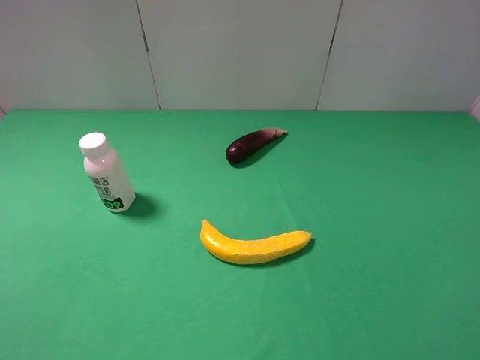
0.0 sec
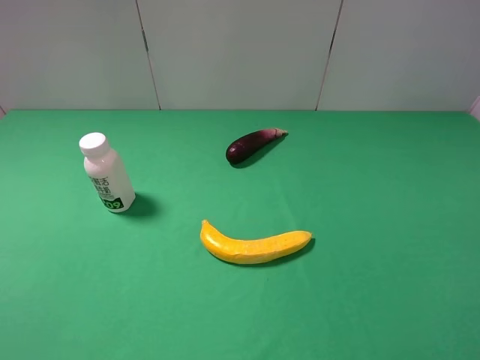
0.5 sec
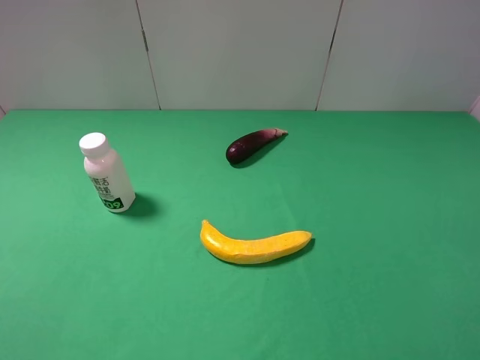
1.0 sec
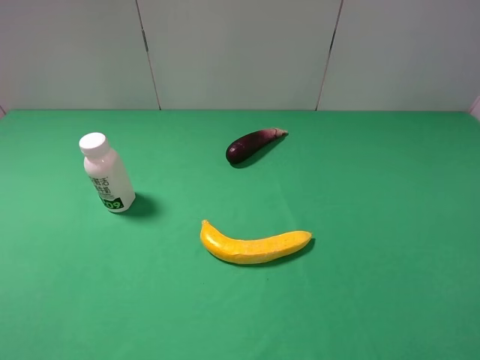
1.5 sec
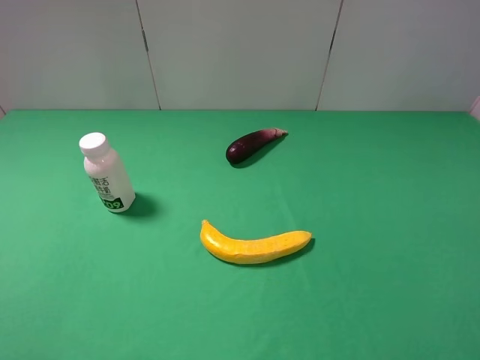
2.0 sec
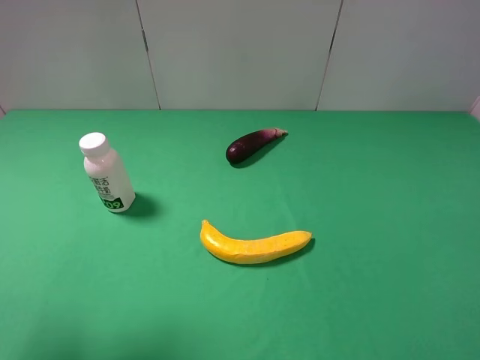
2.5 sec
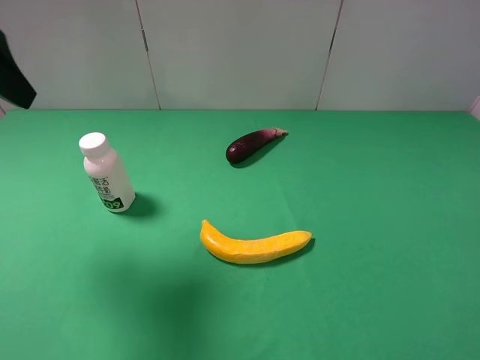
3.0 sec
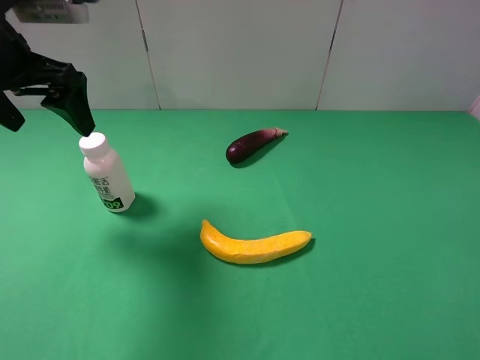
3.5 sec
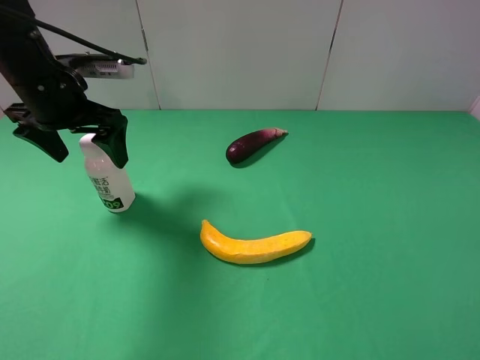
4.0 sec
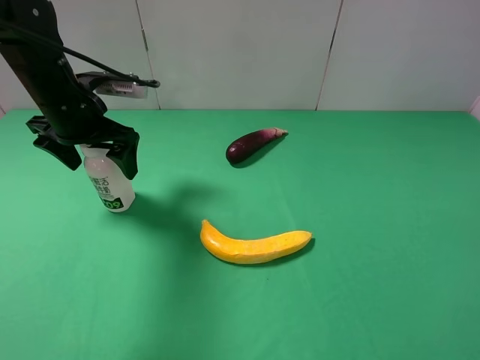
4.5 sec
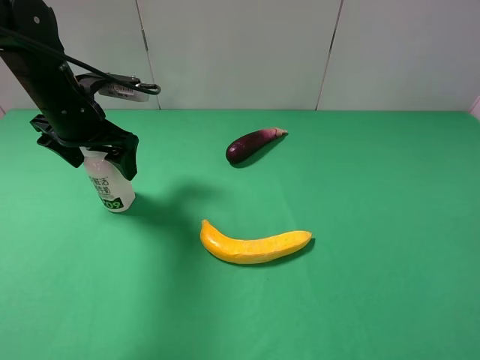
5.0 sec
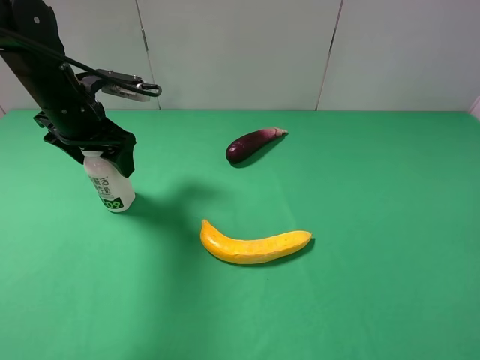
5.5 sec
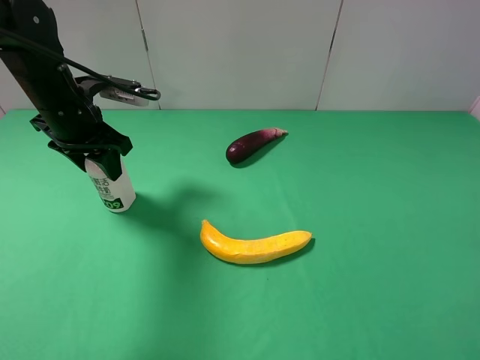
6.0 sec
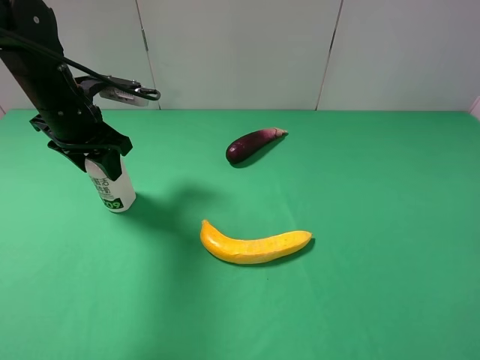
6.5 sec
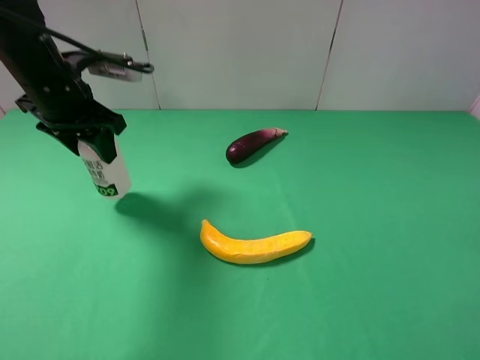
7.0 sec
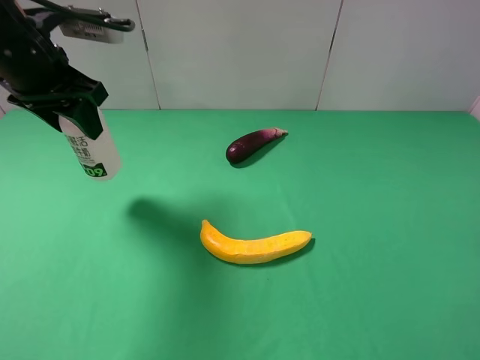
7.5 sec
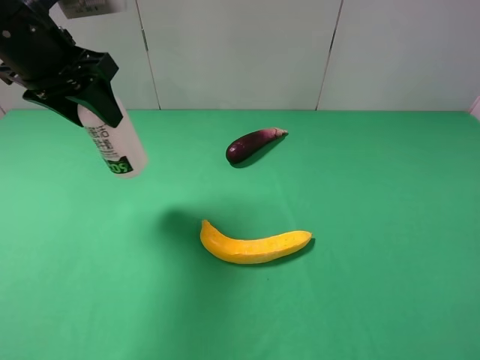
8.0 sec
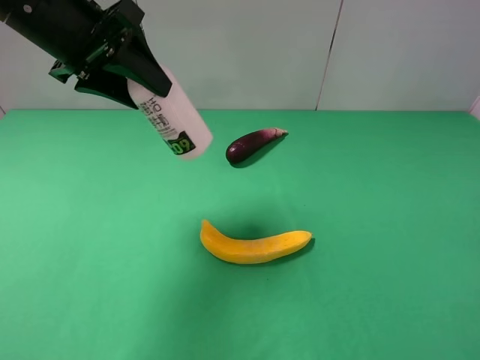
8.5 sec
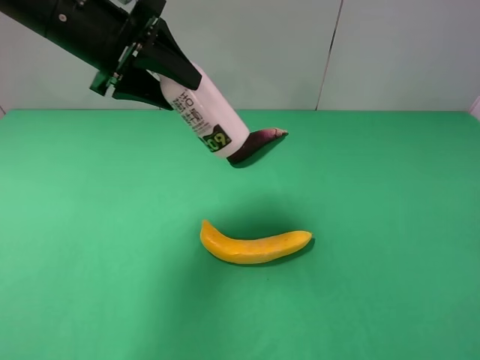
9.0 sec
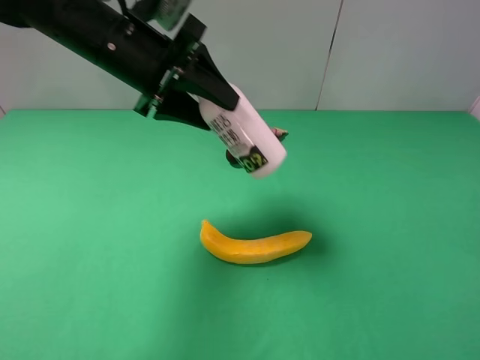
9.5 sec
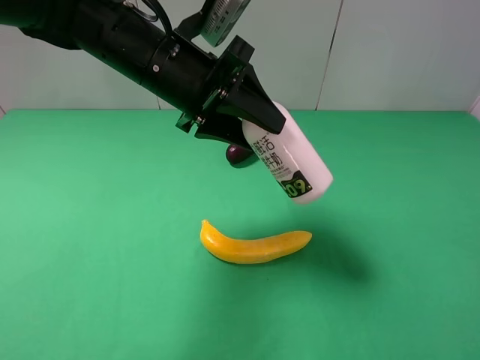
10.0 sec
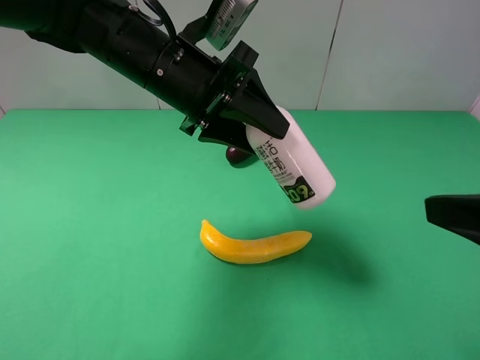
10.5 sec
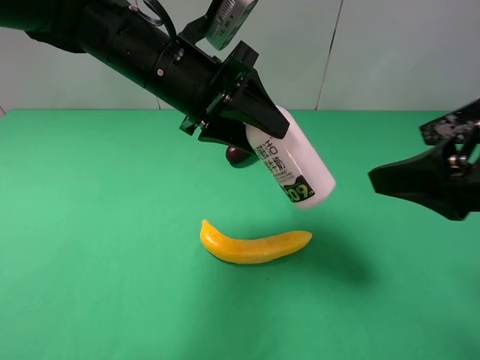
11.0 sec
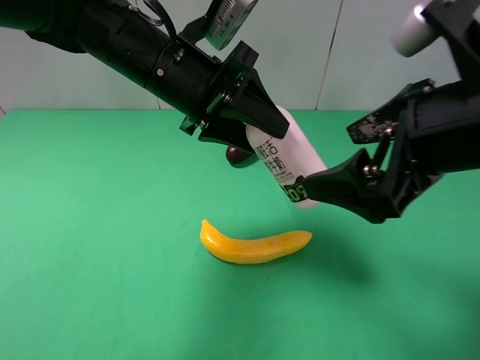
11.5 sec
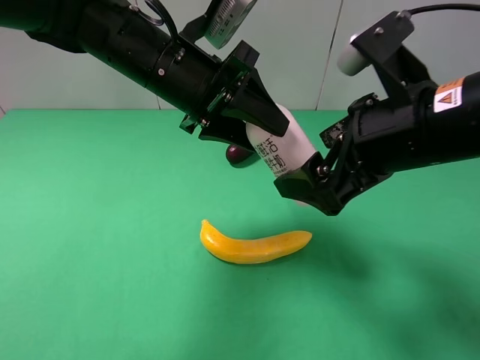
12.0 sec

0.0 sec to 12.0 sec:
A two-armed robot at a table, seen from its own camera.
Task of the whole recording: use the left gripper to pick up the item and transfer it from the left gripper to the right gripper.
2.0 sec to 4.0 sec: The left gripper goes some 30 cm forward.
4.0 sec to 6.0 sec: The left gripper closes.
6.0 sec to 8.0 sec: The left gripper shifts some 10 cm upward.
8.0 sec to 10.0 sec: The left gripper heads to the right, covering some 15 cm.
10.0 sec to 12.0 sec: The right gripper heads forward and to the left, covering approximately 20 cm.

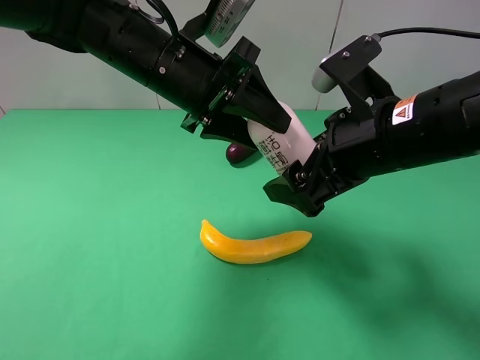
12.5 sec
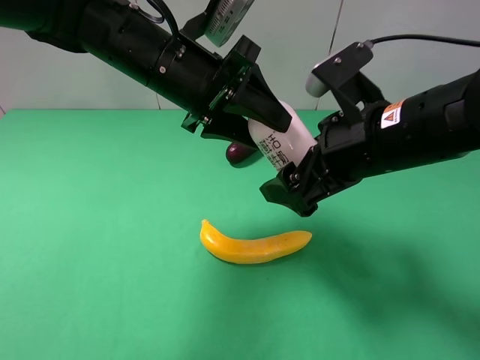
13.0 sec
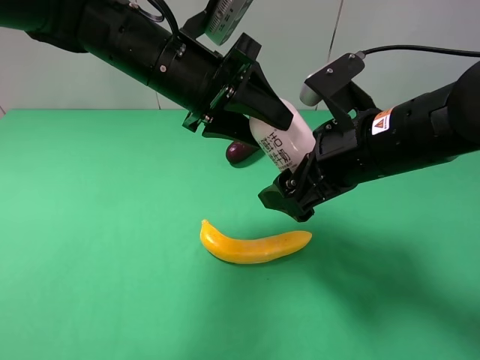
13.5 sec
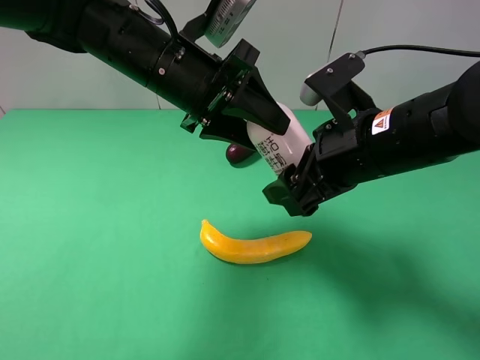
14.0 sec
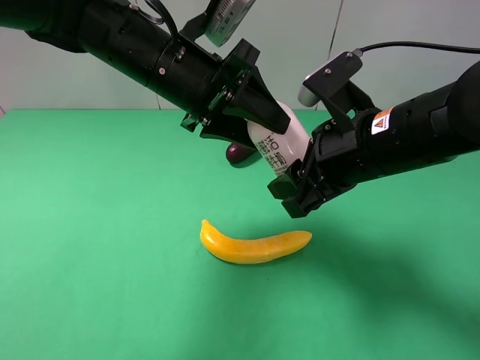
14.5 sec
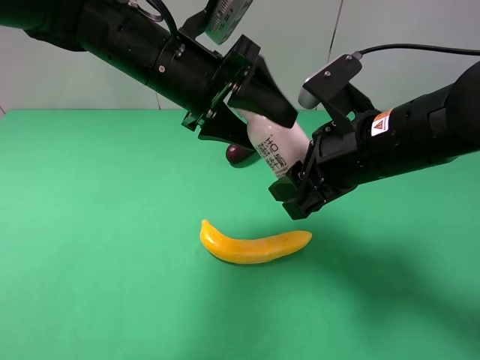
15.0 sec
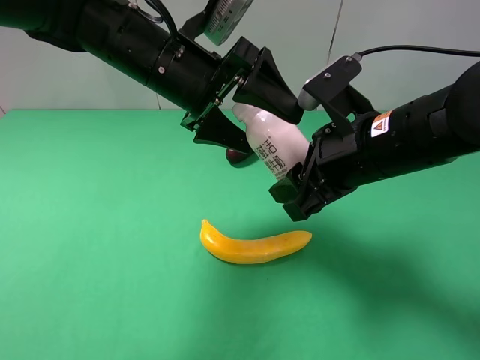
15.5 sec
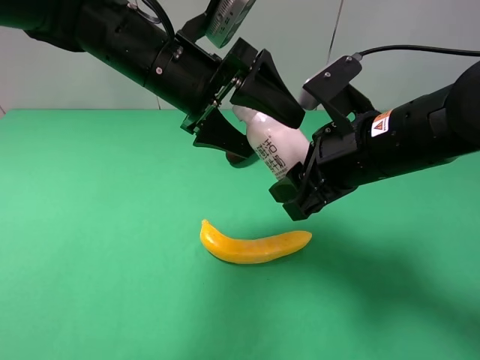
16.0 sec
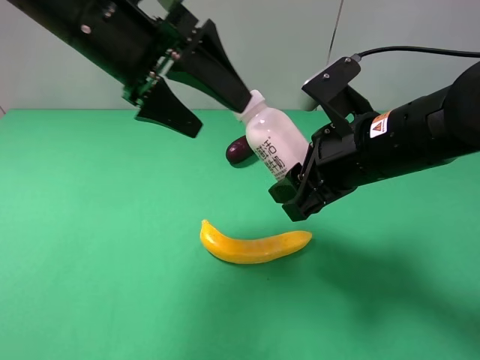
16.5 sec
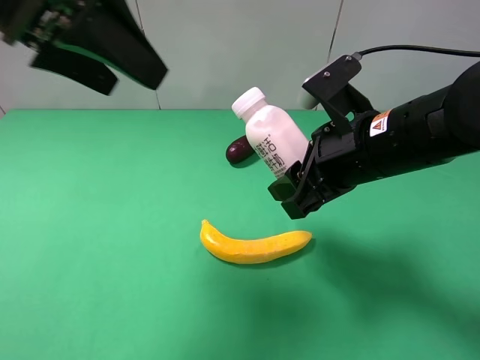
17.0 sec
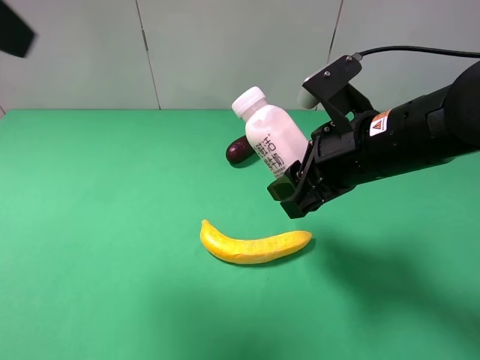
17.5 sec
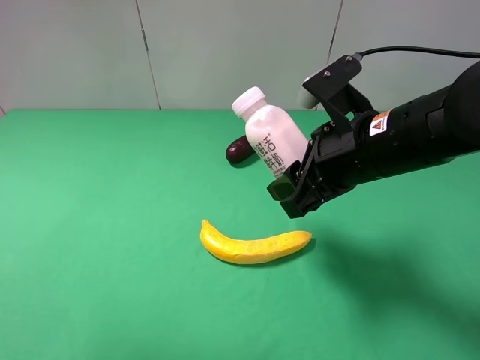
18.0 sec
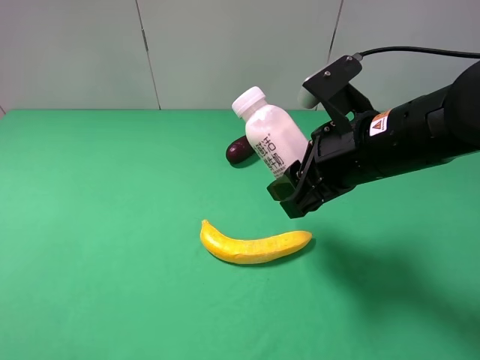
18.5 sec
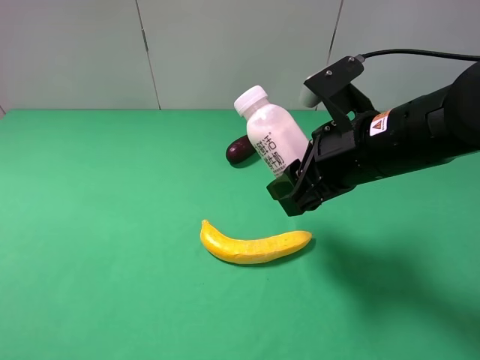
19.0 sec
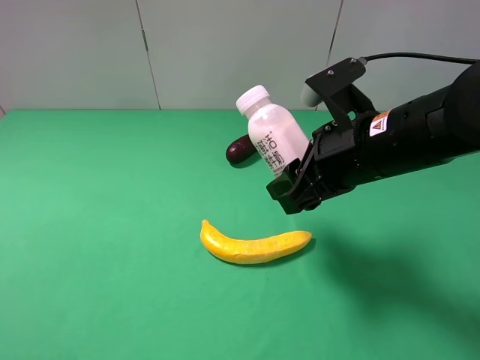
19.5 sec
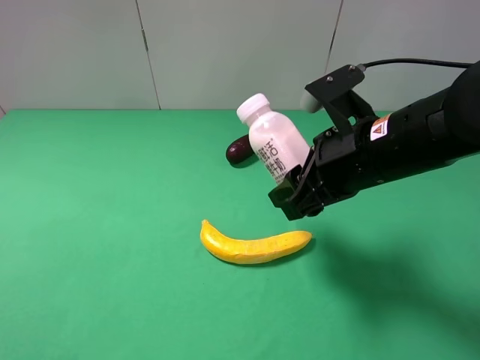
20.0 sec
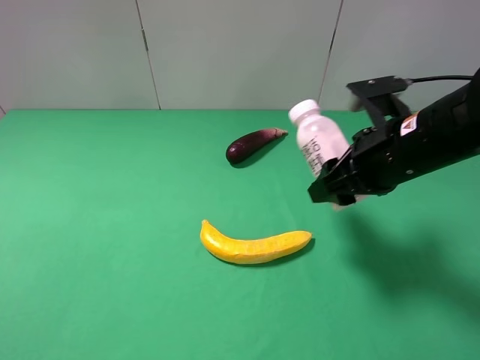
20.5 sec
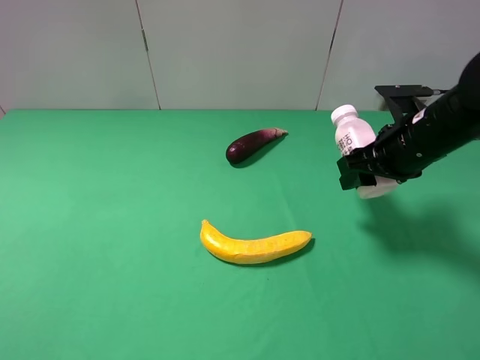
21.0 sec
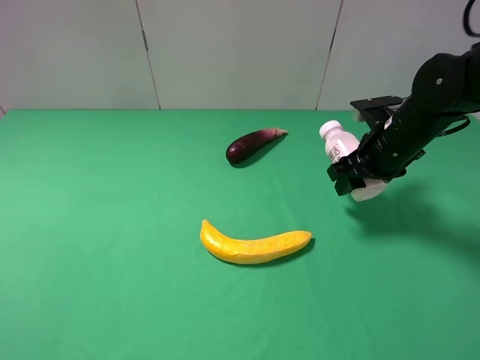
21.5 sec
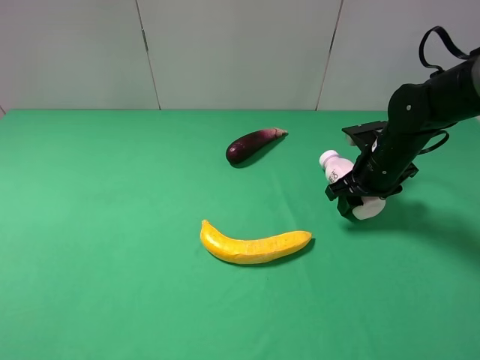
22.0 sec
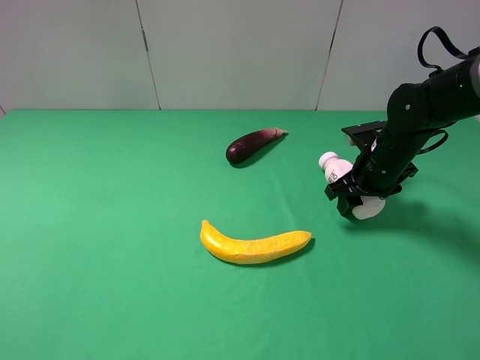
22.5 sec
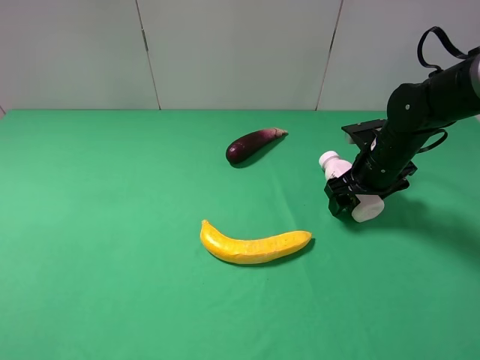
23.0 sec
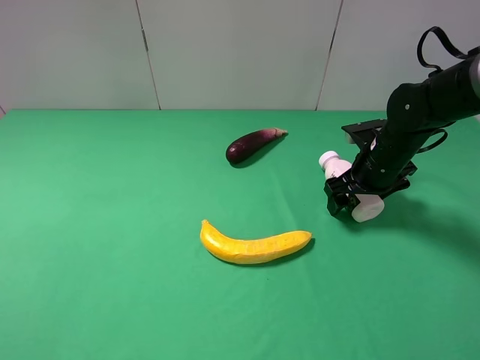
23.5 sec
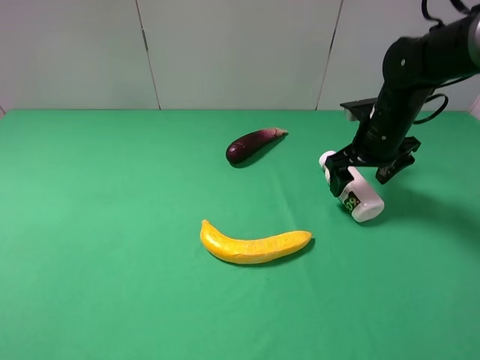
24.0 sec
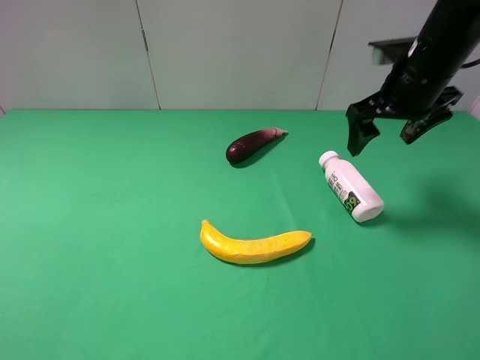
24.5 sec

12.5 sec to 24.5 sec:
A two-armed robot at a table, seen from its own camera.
Task of the whole recording: use the left gripper to pick up the item and transfer it from the left gripper to the right gripper.
12.5 sec to 14.5 sec: The right gripper closes its fingers.
14.5 sec to 16.5 sec: The left gripper moves to the left and upward, approximately 10 cm, and opens its fingers.
16.5 sec to 18.5 sec: The left gripper heads backward and to the left, covering about 30 cm.
18.5 sec to 20.5 sec: The left gripper travels downward by roughly 10 cm; the right gripper moves to the right, roughly 5 cm.
20.5 sec to 22.5 sec: The right gripper heads downward and forward, covering approximately 15 cm.
22.5 sec to 24.5 sec: The right gripper shifts about 15 cm upward, and opens.

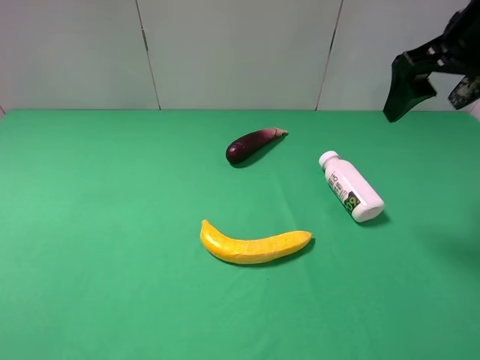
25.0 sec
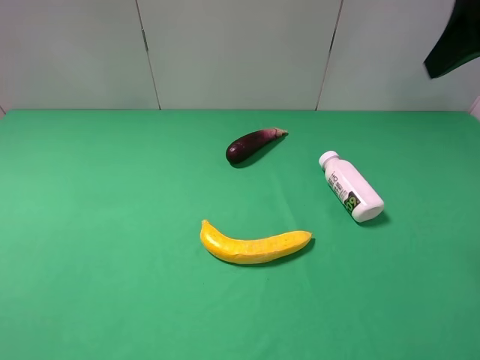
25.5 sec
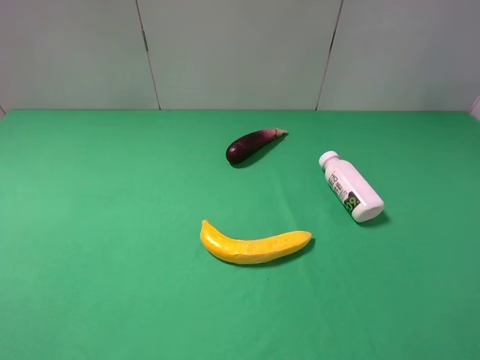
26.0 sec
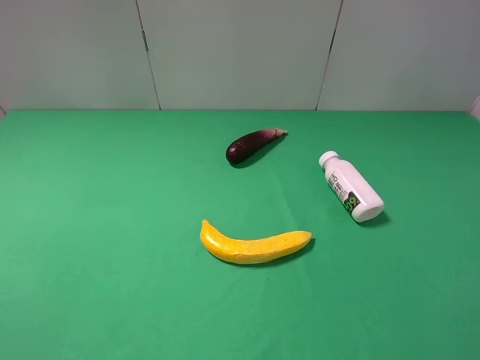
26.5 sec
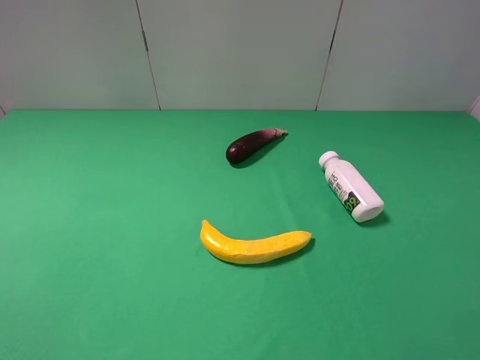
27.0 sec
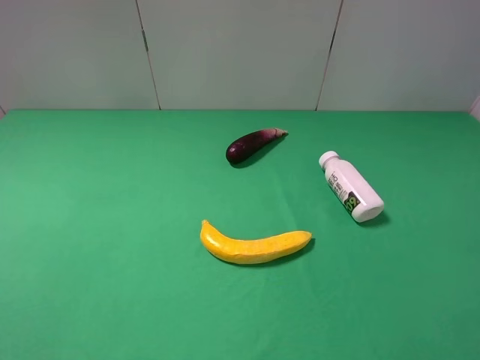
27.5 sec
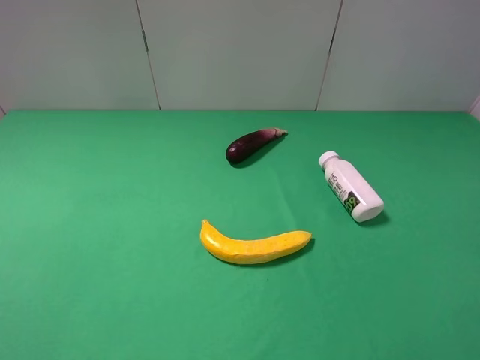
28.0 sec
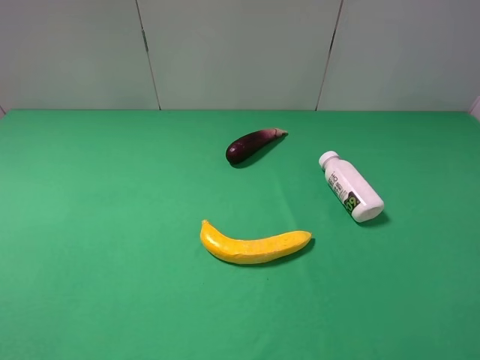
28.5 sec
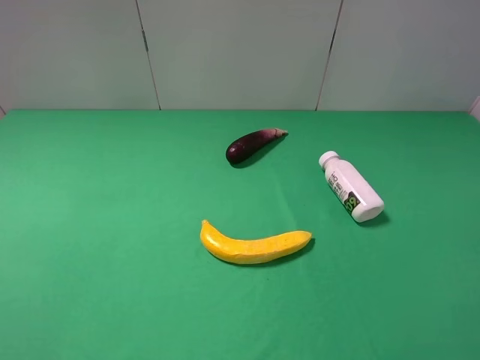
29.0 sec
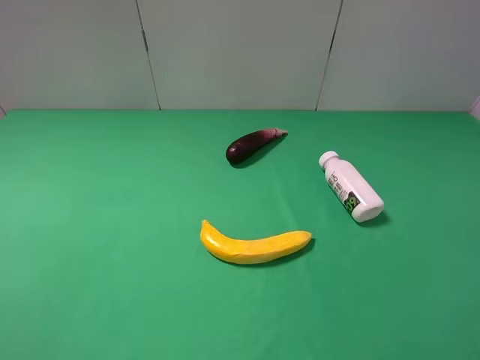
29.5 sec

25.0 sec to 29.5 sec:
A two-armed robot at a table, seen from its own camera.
Task of the whole recording: use the left gripper to pick up the item and transfer it from the left gripper to the right gripper.
25.0 sec to 27.0 sec: The right gripper is displaced backward by approximately 25 cm.
